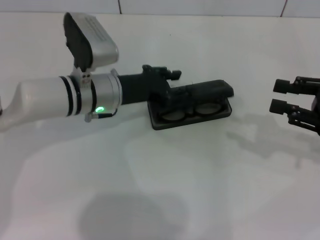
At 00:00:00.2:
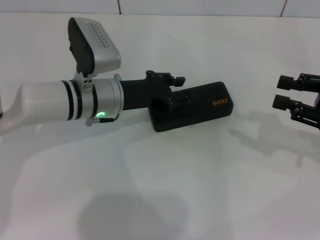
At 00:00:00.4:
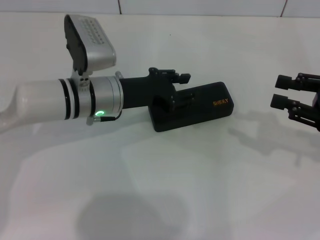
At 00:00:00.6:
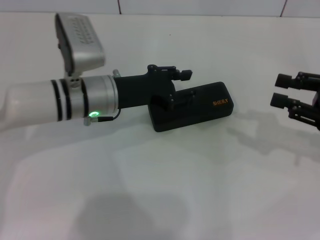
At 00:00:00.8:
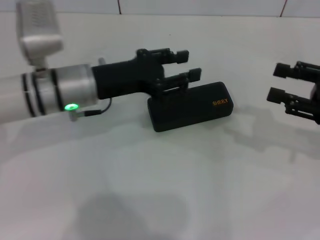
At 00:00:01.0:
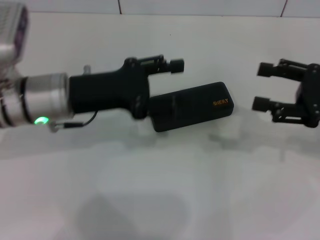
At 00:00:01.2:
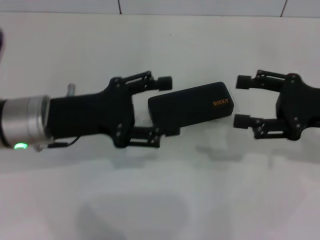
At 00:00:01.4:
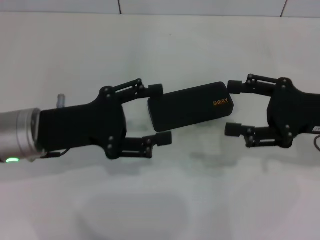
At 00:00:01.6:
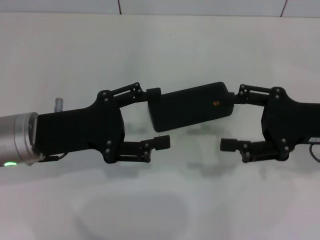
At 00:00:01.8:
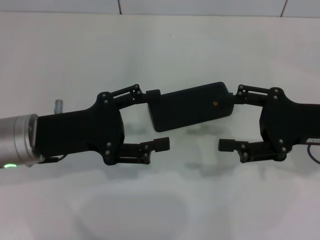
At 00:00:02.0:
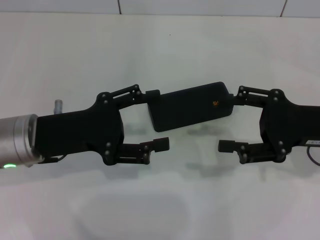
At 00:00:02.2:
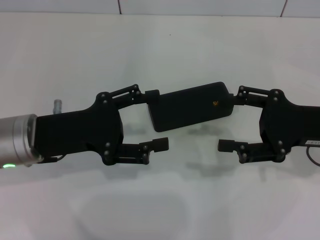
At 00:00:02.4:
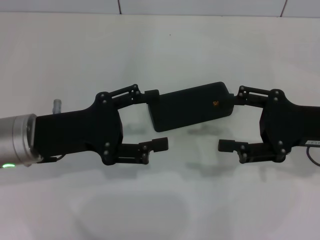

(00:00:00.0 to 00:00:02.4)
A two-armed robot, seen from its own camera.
00:00:00.0 - 00:00:01.2: The left gripper heads backward and to the left, covering roughly 10 cm; the right gripper opens its fingers.
00:00:01.2 - 00:00:02.4: The grippers make only small movements.
